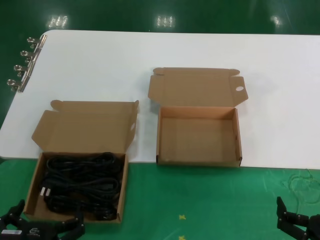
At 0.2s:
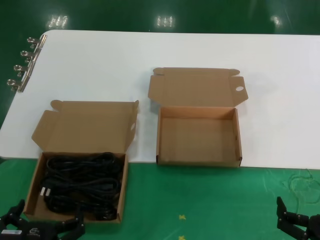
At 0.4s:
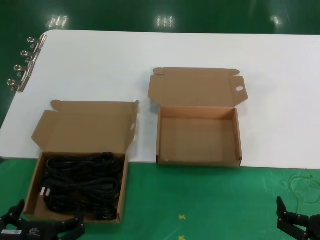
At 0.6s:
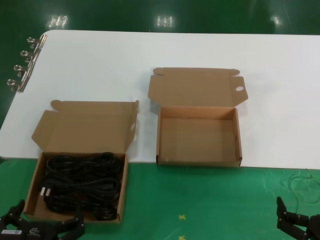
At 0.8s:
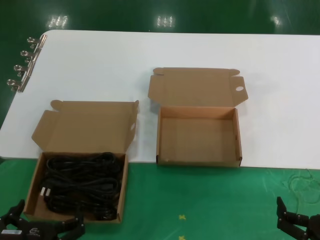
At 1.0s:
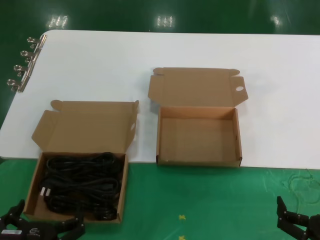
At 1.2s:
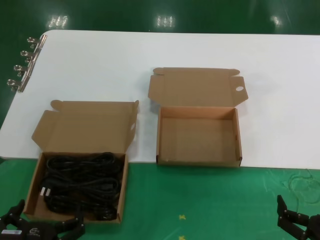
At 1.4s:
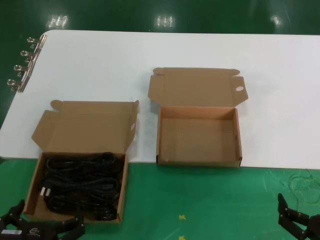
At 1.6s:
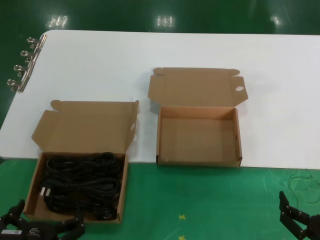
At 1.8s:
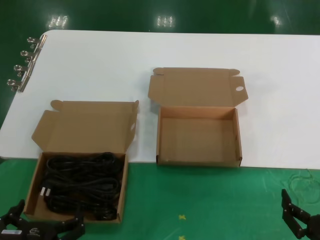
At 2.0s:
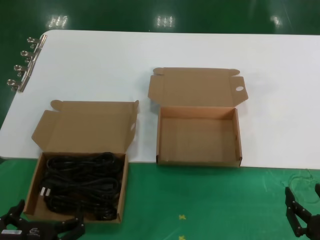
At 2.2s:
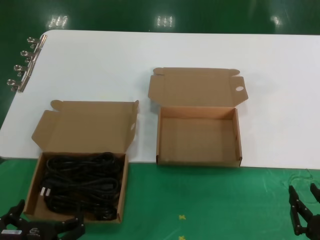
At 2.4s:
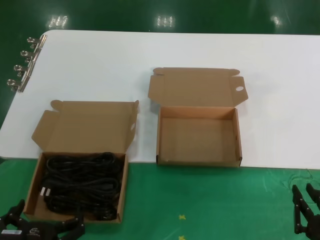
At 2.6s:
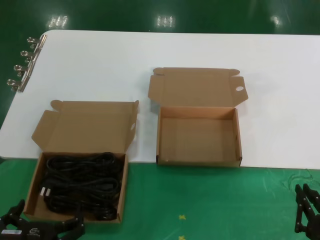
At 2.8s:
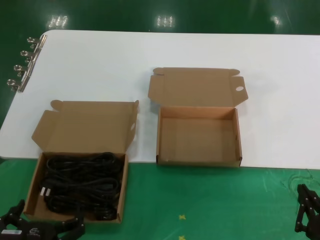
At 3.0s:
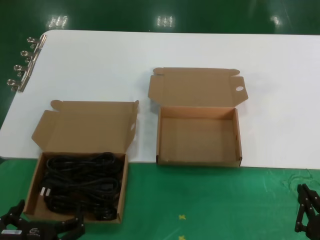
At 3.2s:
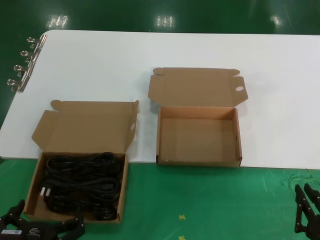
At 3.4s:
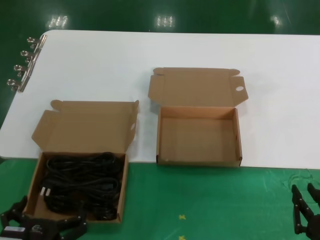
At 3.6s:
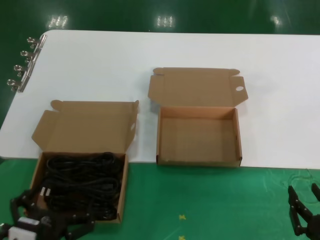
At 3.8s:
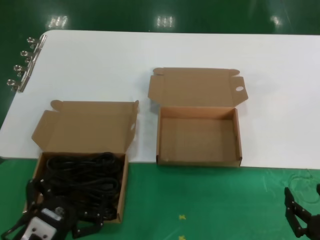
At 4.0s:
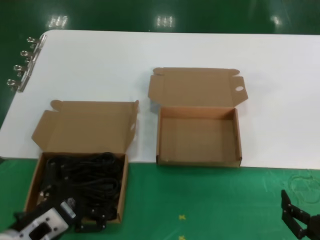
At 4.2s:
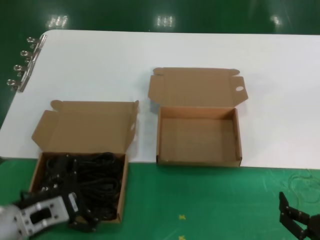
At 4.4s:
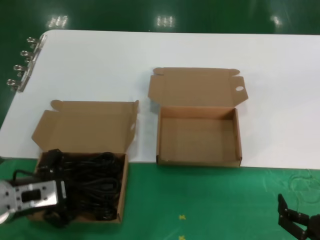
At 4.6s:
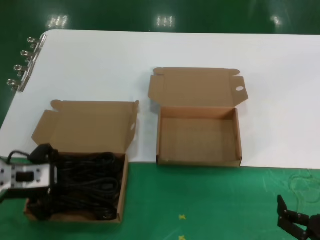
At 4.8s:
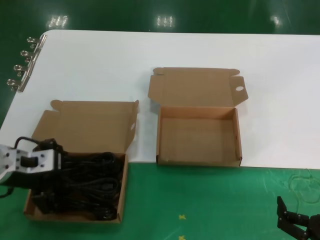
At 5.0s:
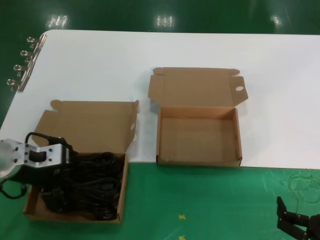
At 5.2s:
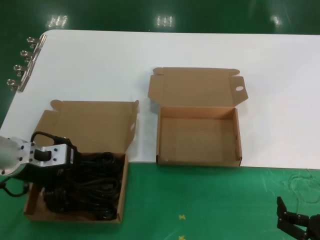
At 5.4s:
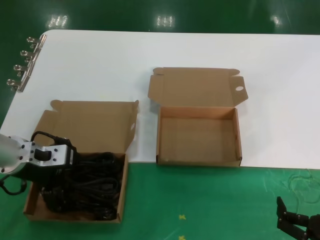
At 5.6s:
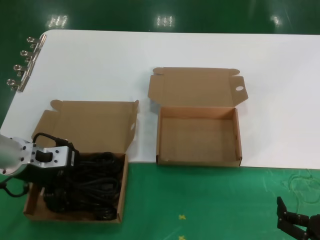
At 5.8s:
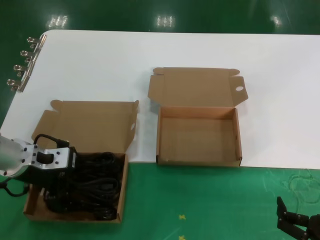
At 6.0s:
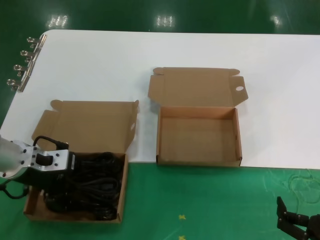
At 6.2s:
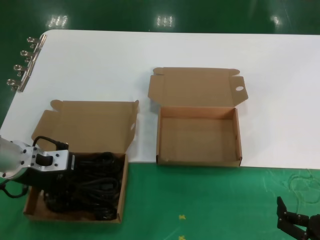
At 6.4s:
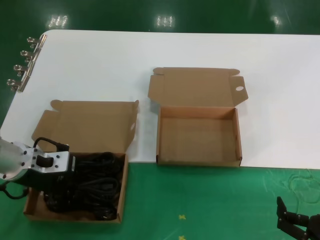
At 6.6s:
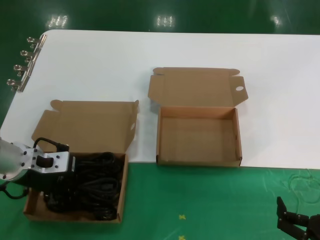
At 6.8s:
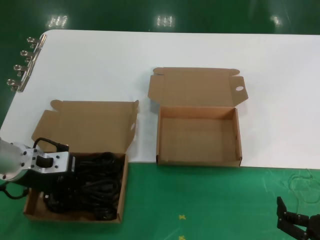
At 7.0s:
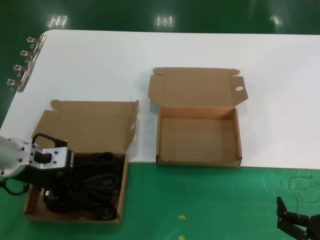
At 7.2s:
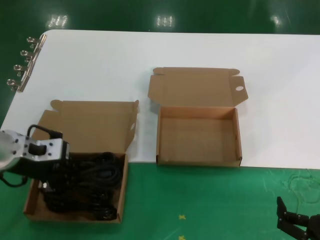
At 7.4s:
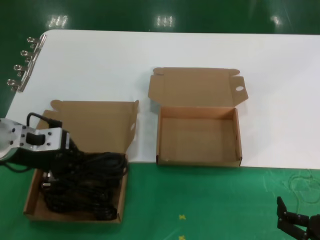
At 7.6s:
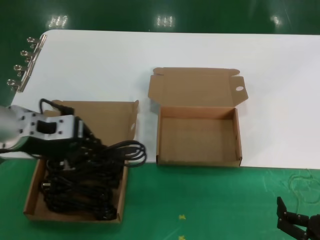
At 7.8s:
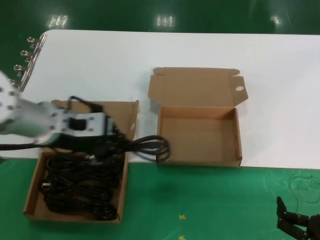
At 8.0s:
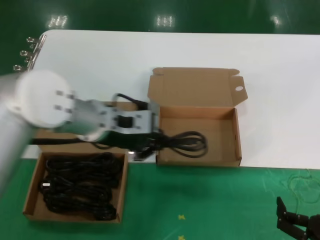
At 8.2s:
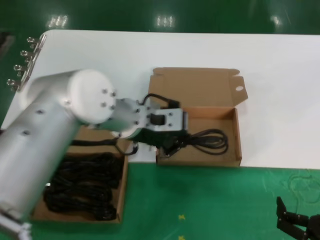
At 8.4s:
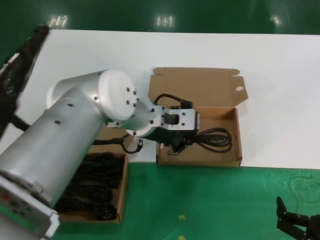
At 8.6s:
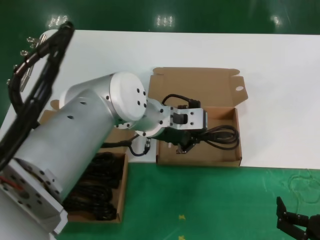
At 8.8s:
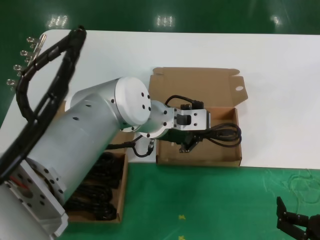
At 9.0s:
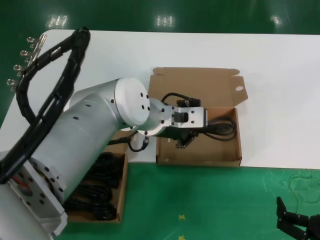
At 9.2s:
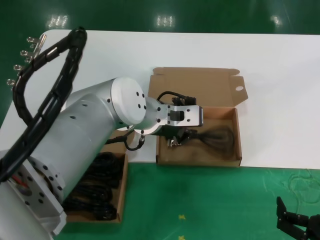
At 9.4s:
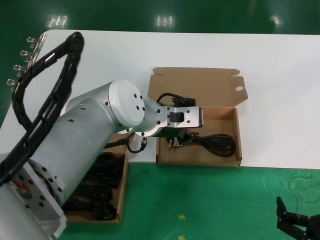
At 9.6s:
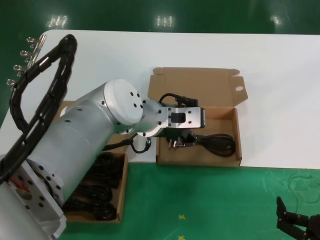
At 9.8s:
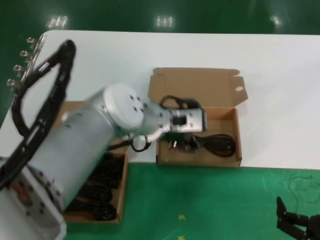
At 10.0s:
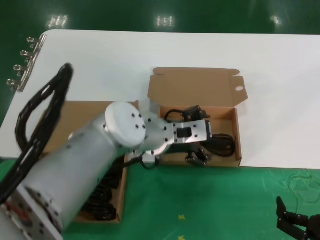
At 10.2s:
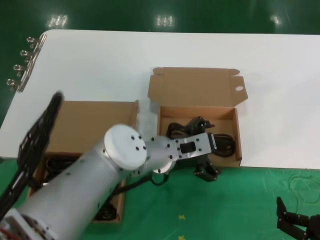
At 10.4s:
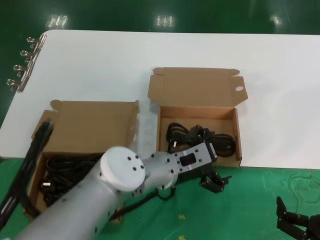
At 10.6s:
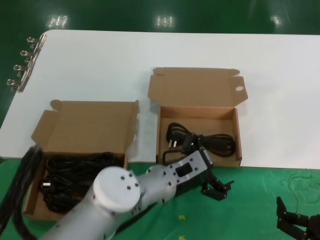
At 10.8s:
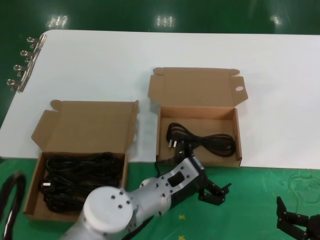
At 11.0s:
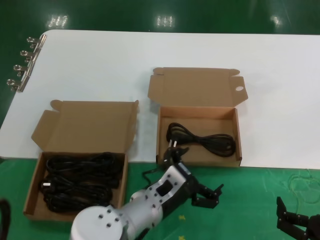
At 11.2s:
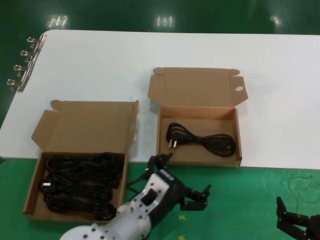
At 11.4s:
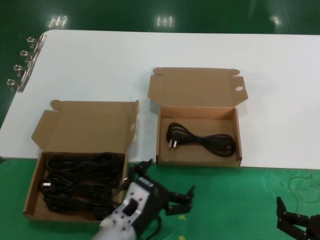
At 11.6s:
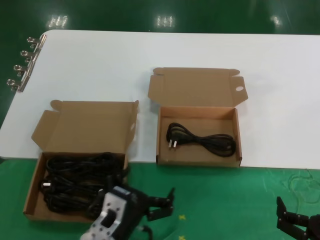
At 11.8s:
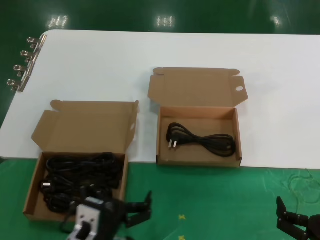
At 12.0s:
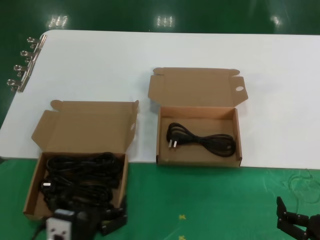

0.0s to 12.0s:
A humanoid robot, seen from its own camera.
Task of the whole recording: take the parts from the box containing them and put them into an empty box.
Step, 0.0s to 7.2s: Grasp the data cable.
Step, 7.4s to 10.2s: Place the data cable in the another box.
0.0s to 3.0s: Neither hand changes place.
3.0s to 4.4s: The left hand shifts about 20 cm upward, forward and to the left.
4.4s to 6.0s: The left hand heads forward and upward, covering approximately 15 cm.
6.0s to 7.6s: The left hand moves upward, roughly 5 cm.
7.6s to 9.0s: The left hand heads to the right, covering approximately 25 cm.
9.0s to 10.4s: The left hand moves downward, about 10 cm.
10.4s to 12.0s: The left hand travels backward, to the left and downward by approximately 25 cm.

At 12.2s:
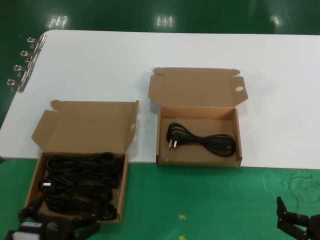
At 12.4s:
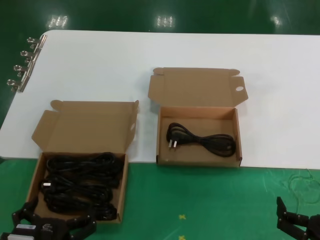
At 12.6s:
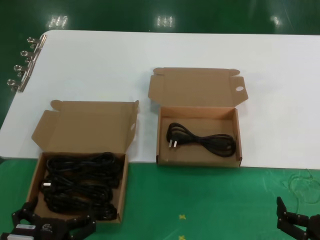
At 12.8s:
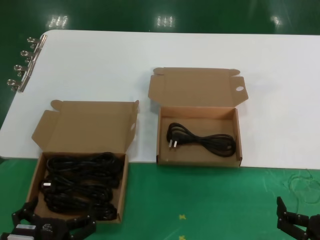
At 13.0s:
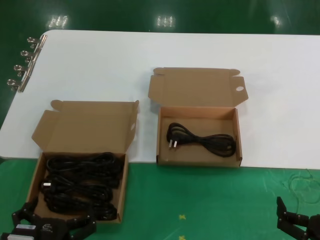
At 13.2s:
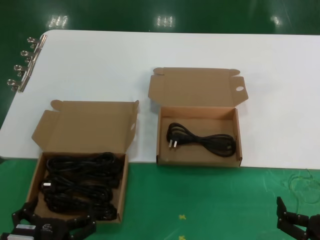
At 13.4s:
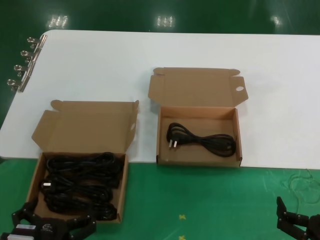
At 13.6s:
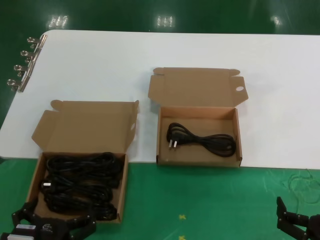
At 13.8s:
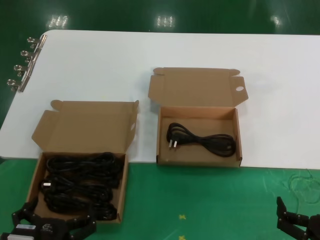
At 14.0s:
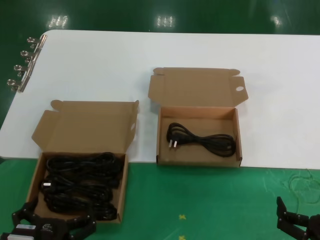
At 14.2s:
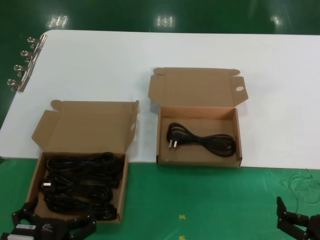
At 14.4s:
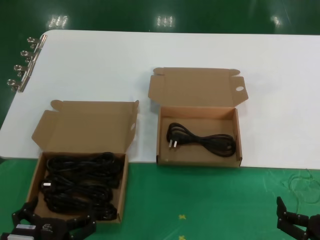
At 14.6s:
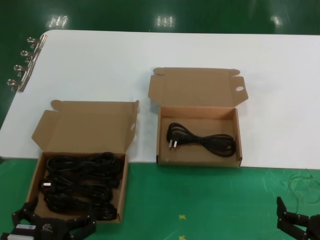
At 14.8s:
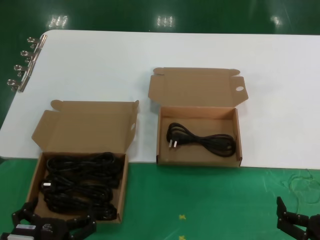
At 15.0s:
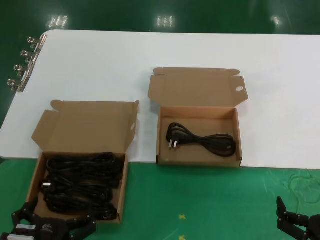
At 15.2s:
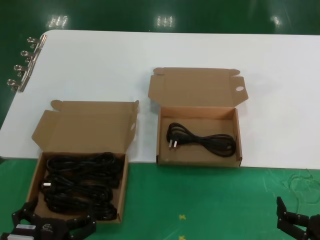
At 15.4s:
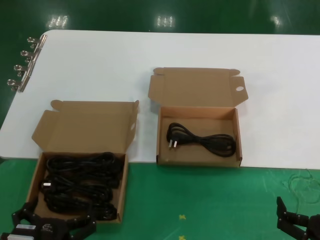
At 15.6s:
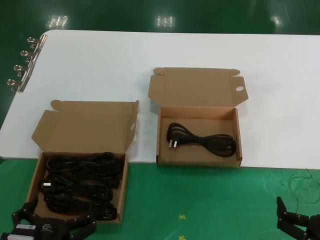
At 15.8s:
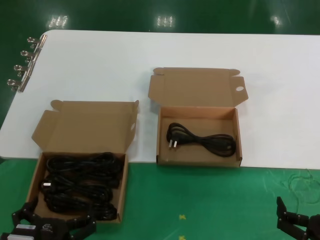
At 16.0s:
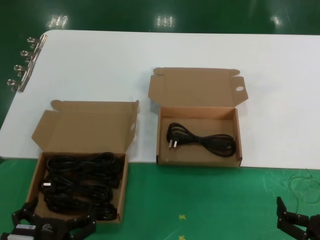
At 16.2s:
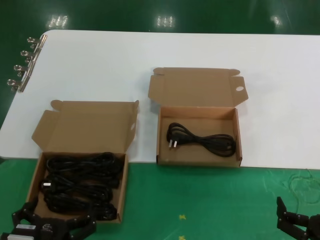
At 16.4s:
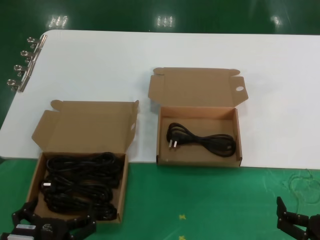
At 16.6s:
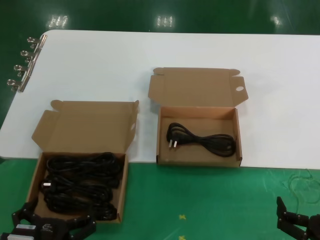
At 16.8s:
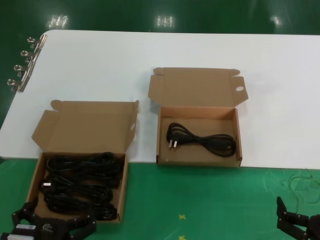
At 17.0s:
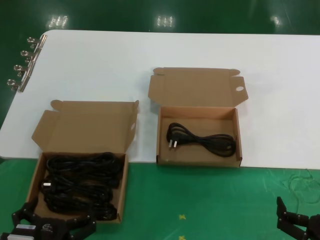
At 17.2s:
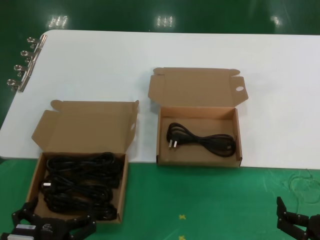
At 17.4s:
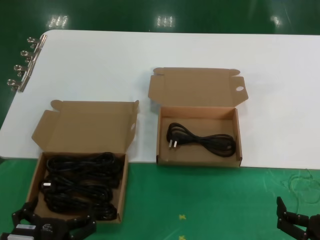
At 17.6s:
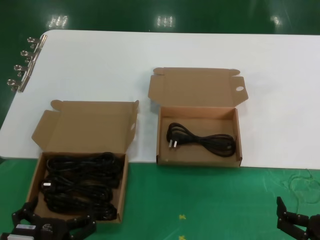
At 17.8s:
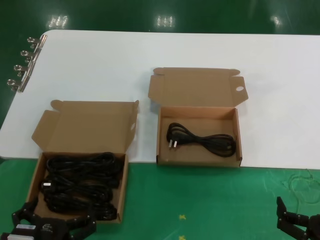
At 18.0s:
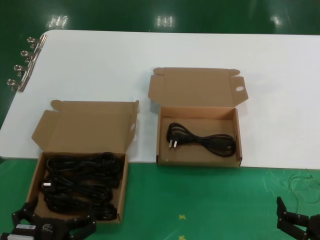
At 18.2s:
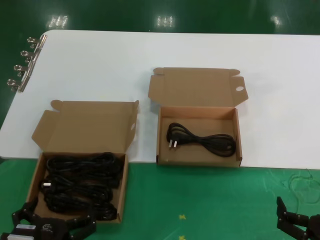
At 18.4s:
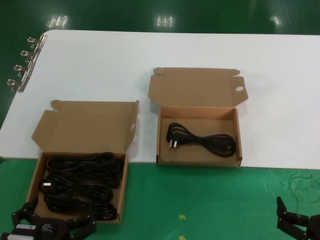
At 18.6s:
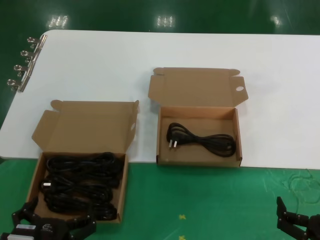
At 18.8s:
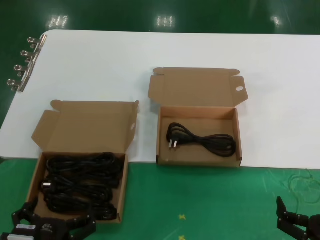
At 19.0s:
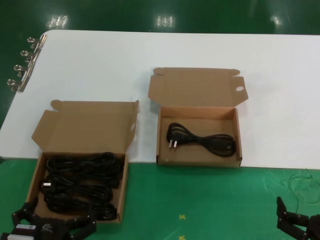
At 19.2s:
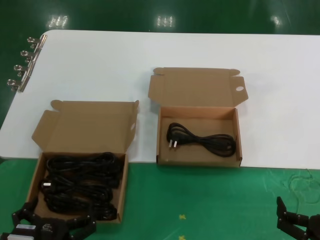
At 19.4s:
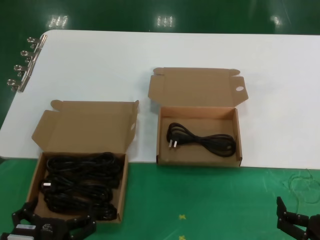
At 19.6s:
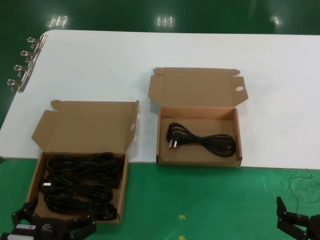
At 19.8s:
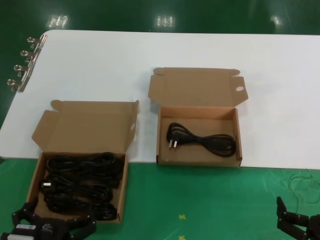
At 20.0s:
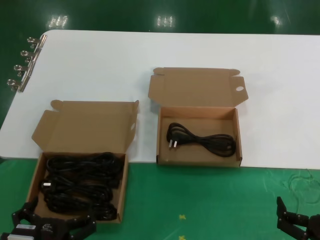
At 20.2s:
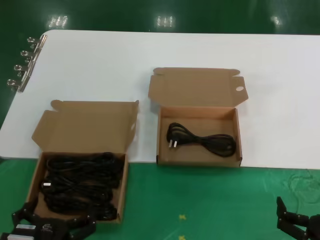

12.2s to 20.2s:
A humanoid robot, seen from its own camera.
Task of the whole recording: take the parts from the box containing them and put them into an empty box.
12.2s to 13.8s: The hands move only a little.
13.8s to 20.2s: Both hands stay put.

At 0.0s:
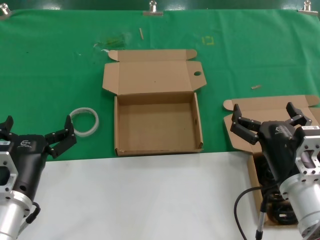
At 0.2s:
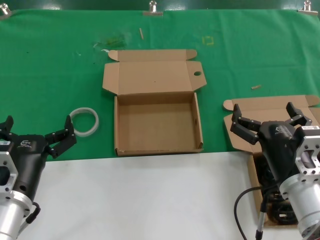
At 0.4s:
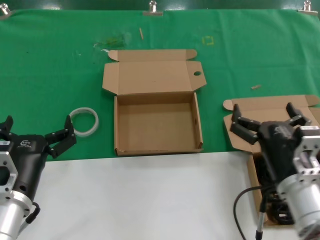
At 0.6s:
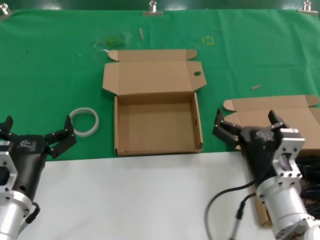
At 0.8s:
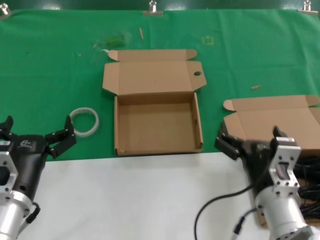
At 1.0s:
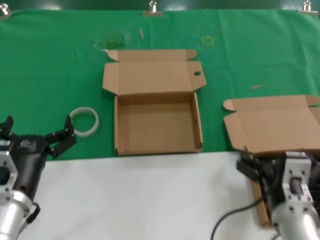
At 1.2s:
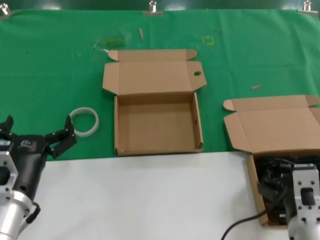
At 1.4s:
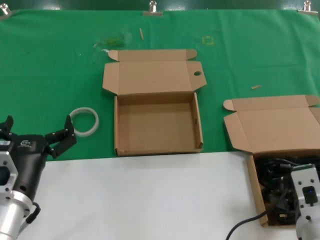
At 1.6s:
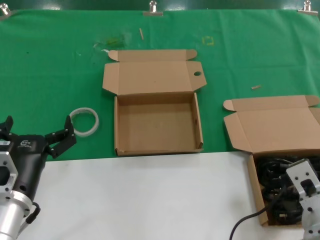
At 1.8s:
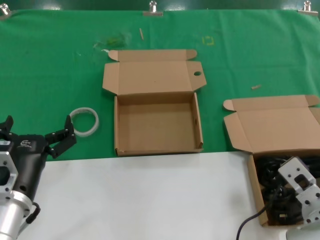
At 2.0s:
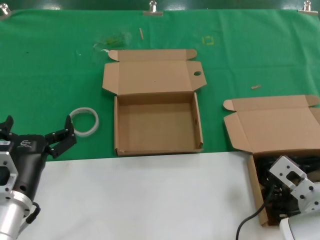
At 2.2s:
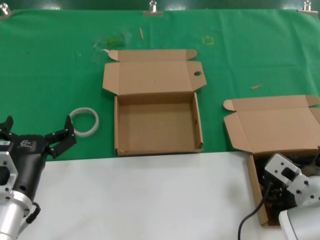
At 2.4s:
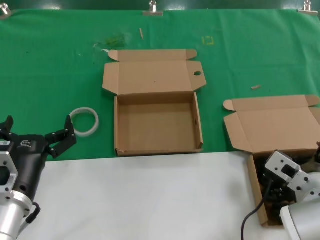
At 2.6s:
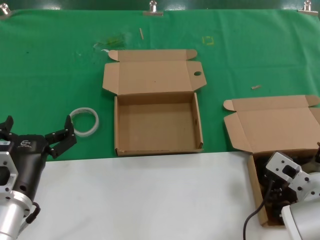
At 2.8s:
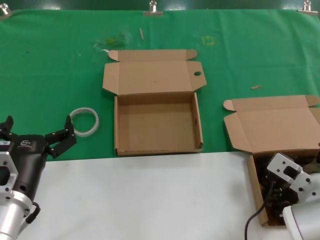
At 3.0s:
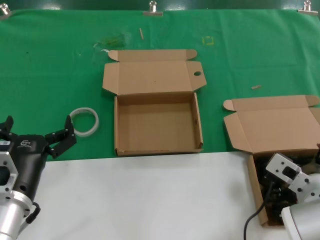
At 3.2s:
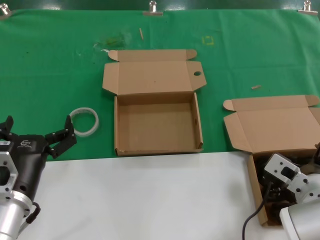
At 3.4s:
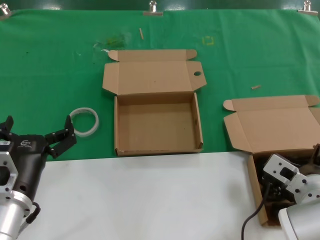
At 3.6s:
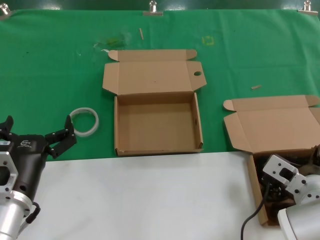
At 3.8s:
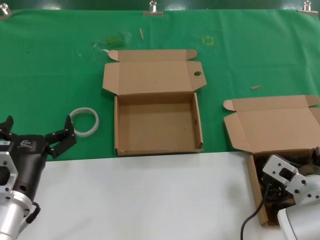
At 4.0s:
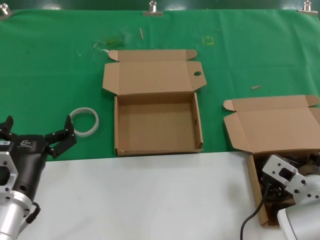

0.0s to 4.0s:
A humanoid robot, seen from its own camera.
Task of the whole recording: take the parts from the box containing them and put them into an empty box.
0.0s to 1.4s: The right hand heads backward, covering some 5 cm.
1.4s to 2.6s: The right hand is displaced forward by approximately 10 cm.
2.6s to 4.0s: Neither hand changes place.
